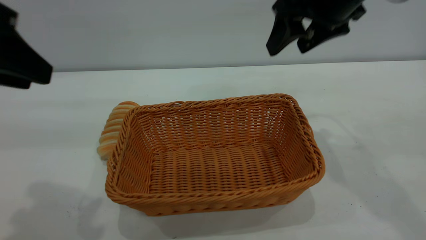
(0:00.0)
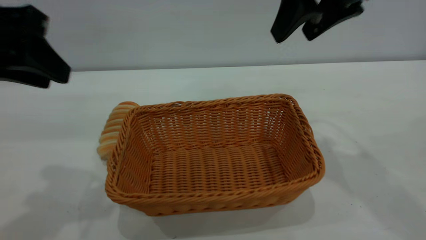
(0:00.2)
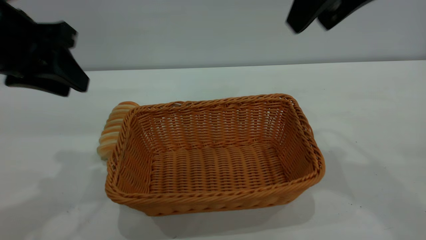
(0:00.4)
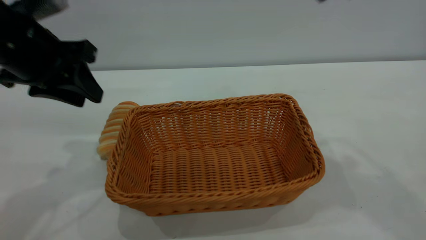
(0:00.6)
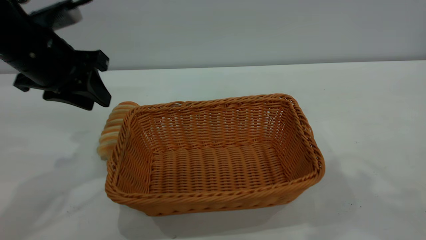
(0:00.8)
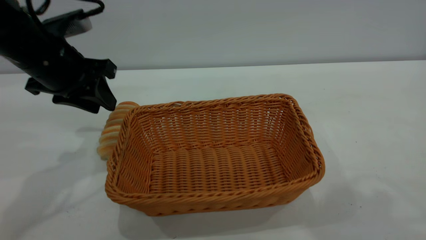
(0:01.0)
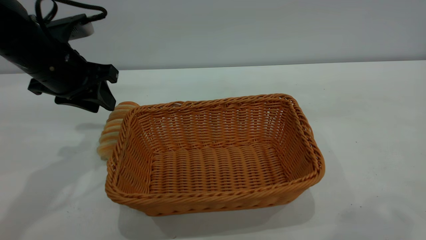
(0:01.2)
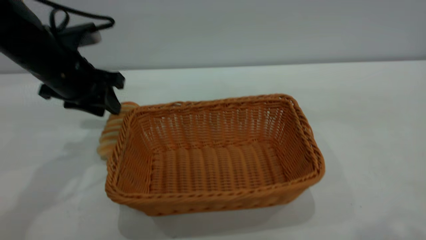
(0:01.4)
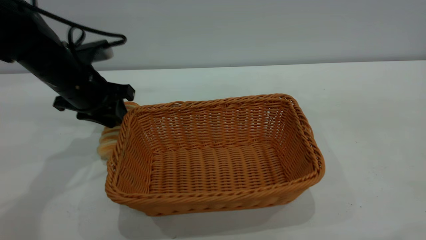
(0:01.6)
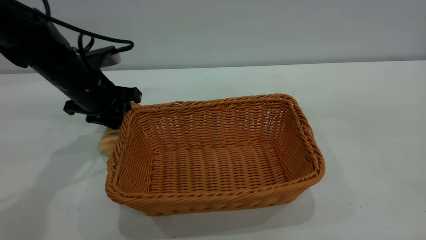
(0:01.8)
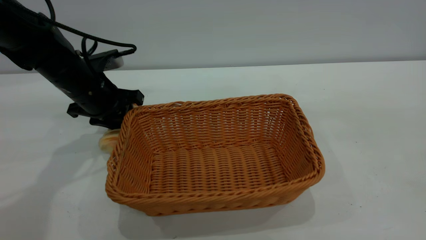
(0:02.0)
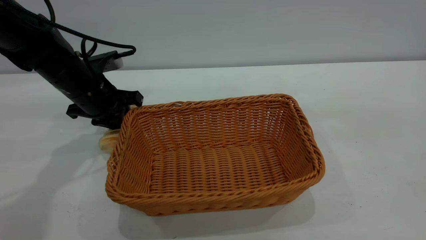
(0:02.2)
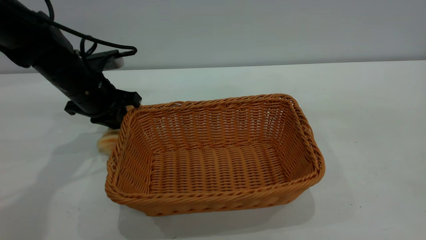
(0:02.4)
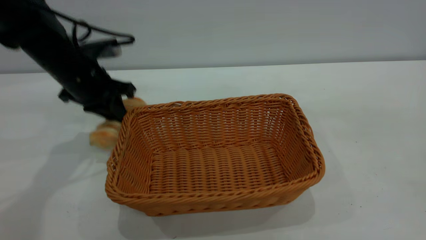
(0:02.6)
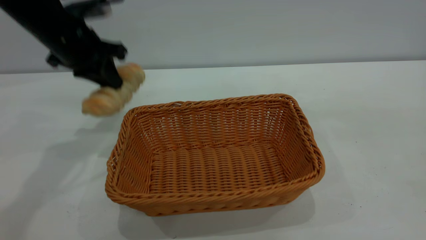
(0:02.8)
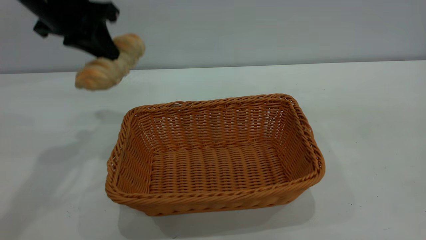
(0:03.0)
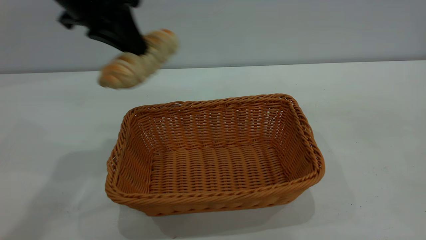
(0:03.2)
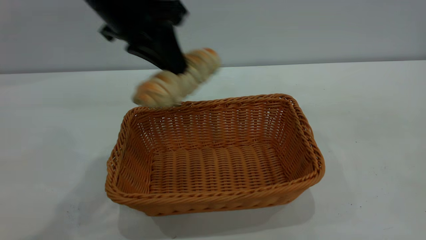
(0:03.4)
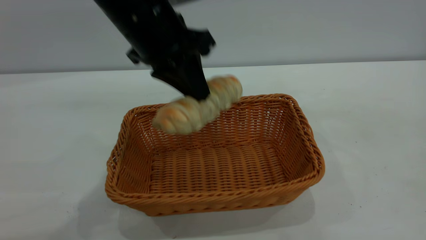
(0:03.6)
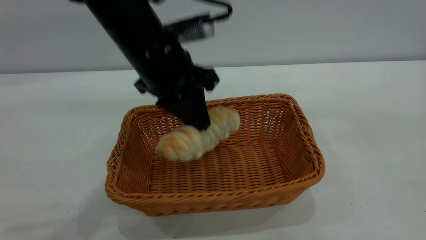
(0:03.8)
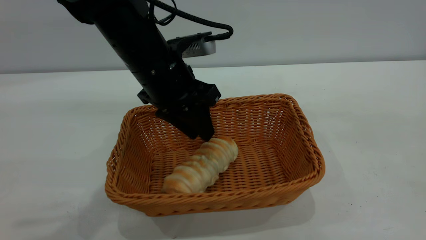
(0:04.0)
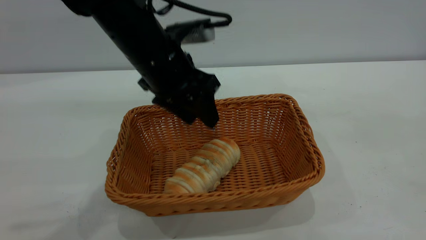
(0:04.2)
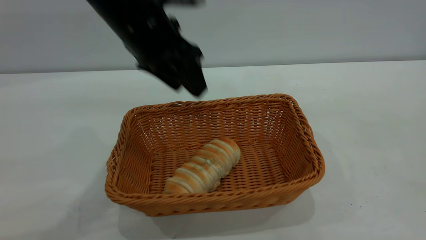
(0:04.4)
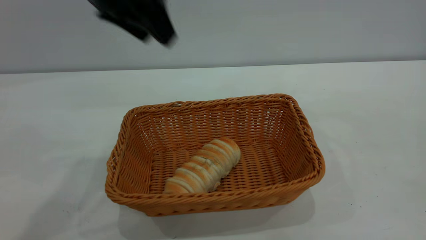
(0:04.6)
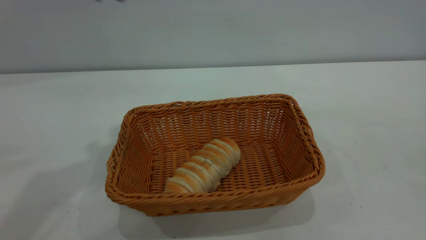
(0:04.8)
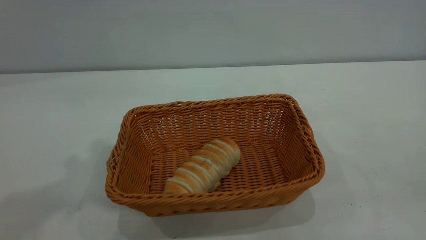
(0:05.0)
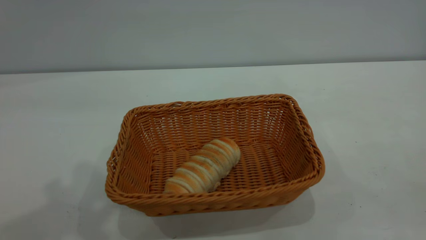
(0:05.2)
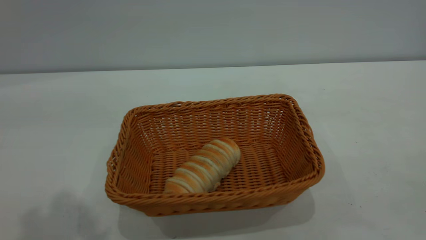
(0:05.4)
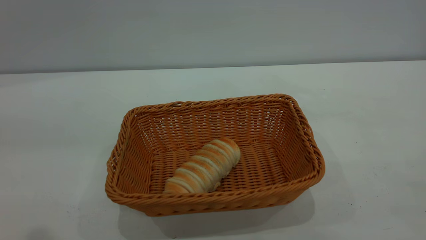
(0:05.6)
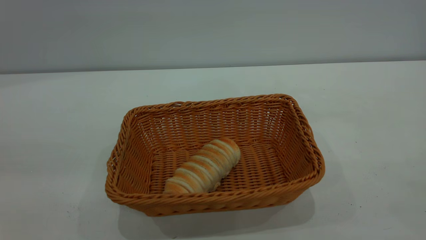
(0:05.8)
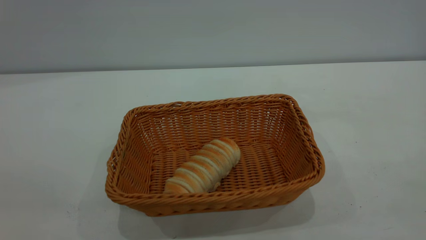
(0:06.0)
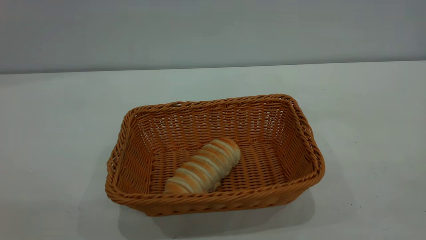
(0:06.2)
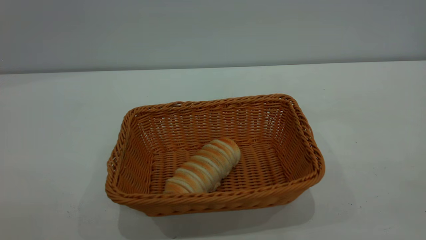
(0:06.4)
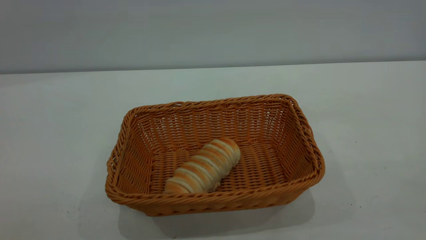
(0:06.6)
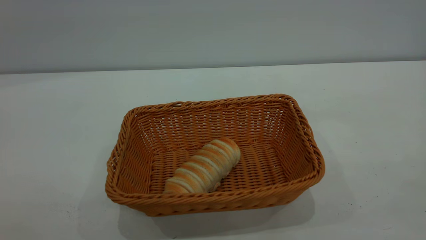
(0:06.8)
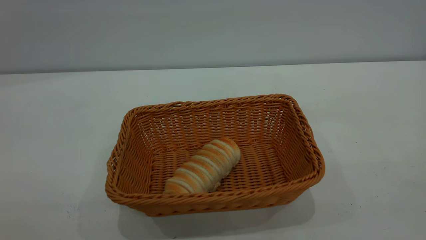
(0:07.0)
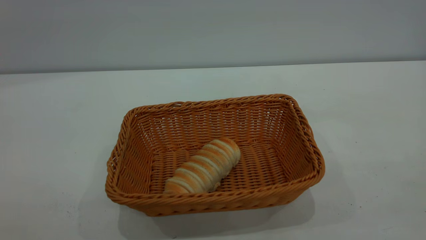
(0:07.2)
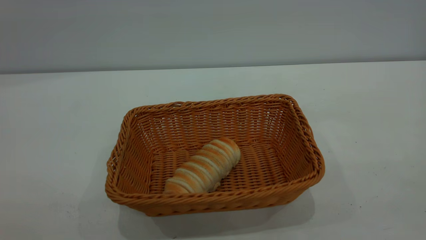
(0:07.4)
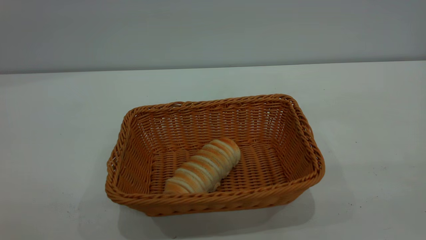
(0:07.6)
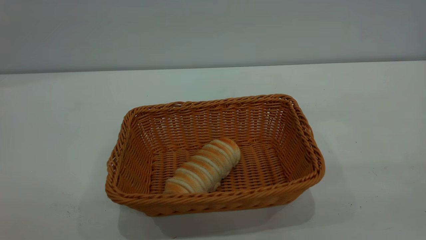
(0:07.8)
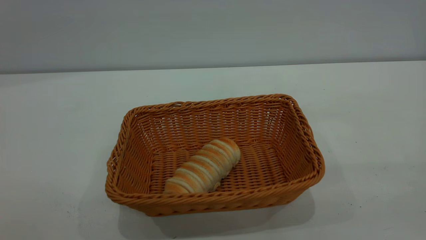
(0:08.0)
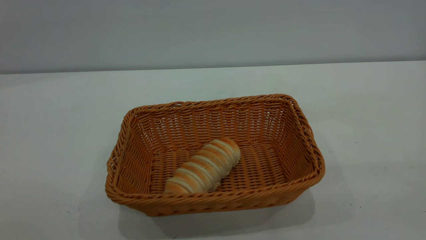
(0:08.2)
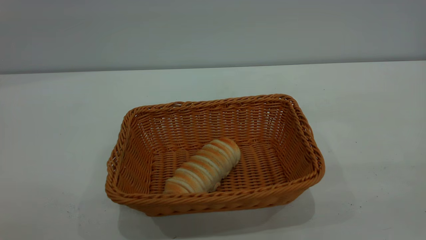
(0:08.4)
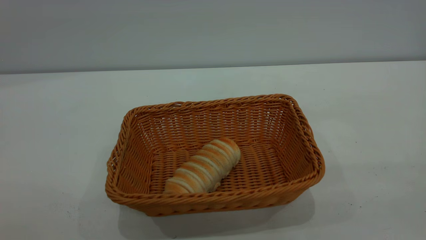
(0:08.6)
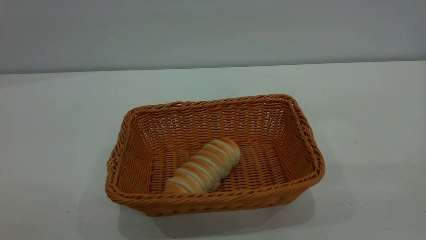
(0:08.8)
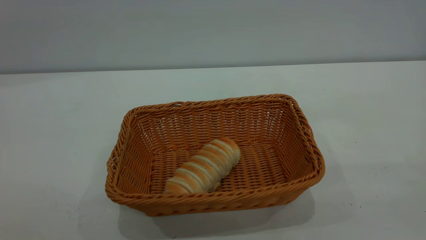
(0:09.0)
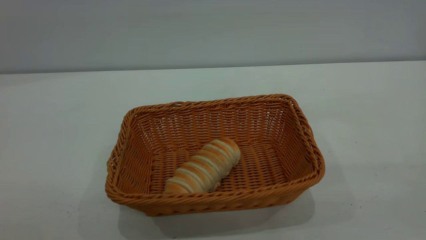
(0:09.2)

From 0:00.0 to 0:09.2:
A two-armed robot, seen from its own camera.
Task of the whole recording: One hand grasps the yellow basket and places it in the middle of the table, while the other hand picks up the long bread and puts it into the yellow basket.
Step, from 0:03.0 to 0:04.4: place the bread into the basket.
From 0:00.0 to 0:01.6: The left gripper moves forward and downward, about 25 cm. Meanwhile the right gripper goes approximately 30 cm backward and upward.
From 0:01.6 to 0:03.0: The left gripper travels upward by some 15 cm, and closes.
From 0:03.0 to 0:04.6: The left gripper goes approximately 10 cm to the right and upward, and opens its fingers.
From 0:04.6 to 0:06.2: The left gripper travels backward by some 35 cm. Meanwhile the right gripper travels downward and backward by about 15 cm.
